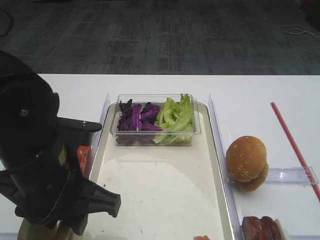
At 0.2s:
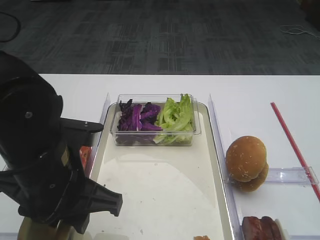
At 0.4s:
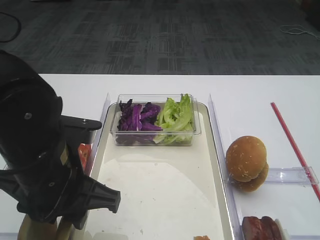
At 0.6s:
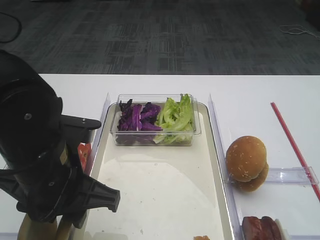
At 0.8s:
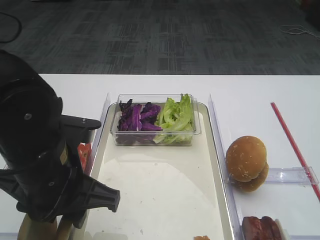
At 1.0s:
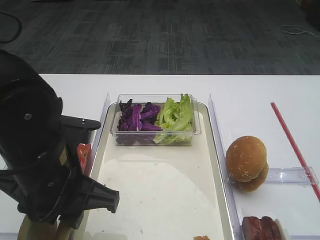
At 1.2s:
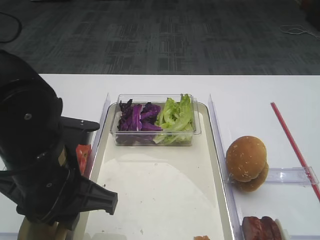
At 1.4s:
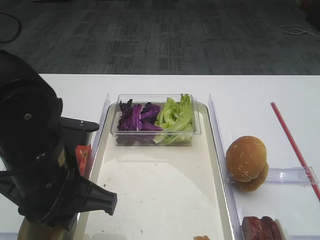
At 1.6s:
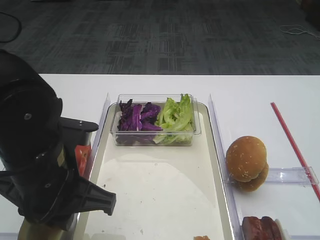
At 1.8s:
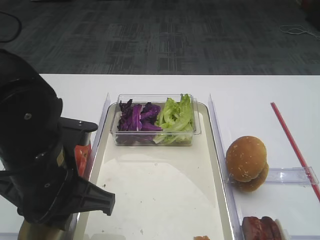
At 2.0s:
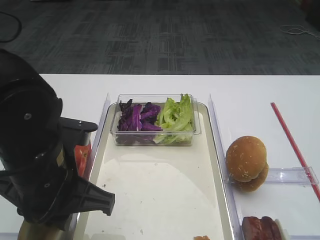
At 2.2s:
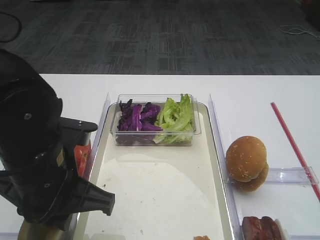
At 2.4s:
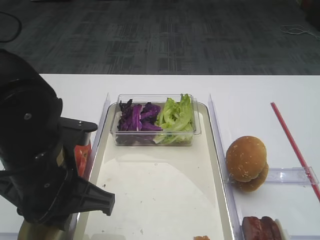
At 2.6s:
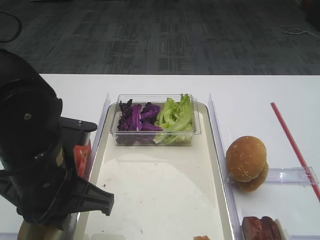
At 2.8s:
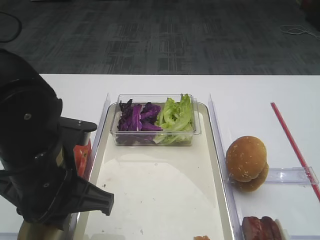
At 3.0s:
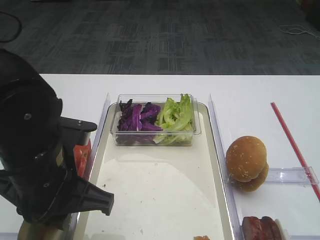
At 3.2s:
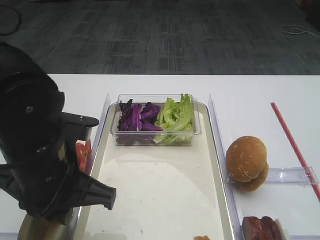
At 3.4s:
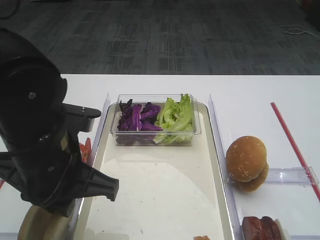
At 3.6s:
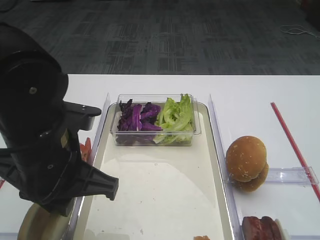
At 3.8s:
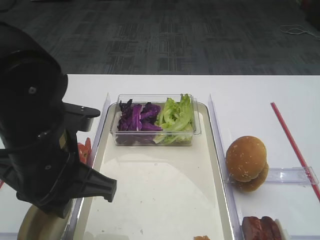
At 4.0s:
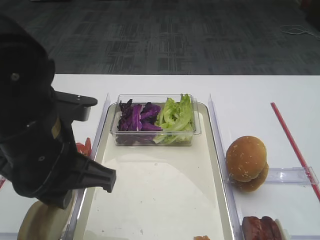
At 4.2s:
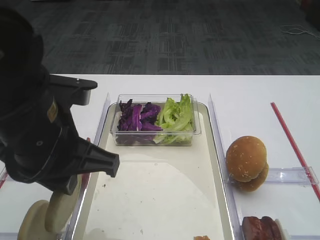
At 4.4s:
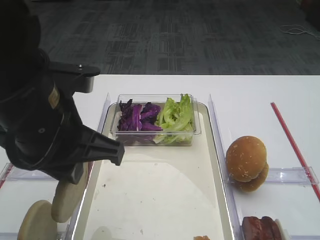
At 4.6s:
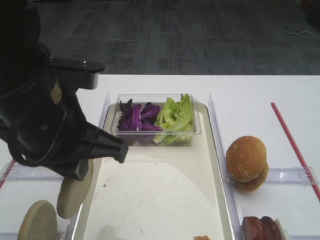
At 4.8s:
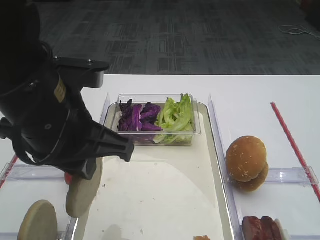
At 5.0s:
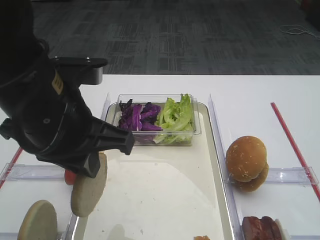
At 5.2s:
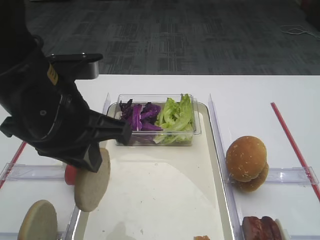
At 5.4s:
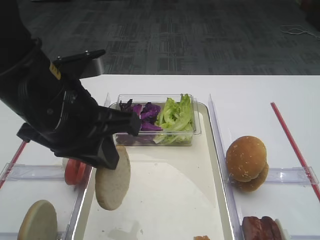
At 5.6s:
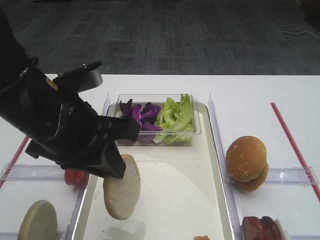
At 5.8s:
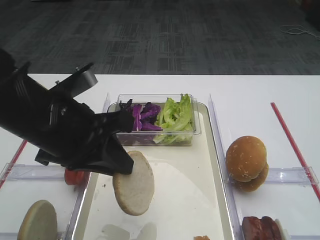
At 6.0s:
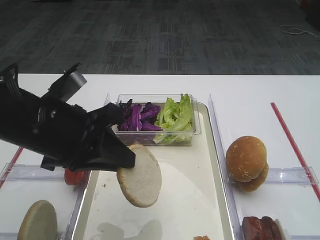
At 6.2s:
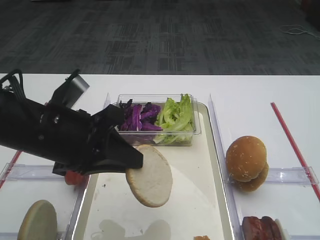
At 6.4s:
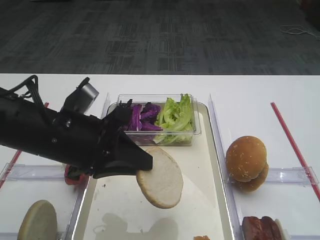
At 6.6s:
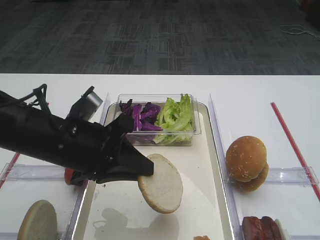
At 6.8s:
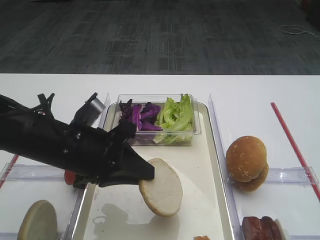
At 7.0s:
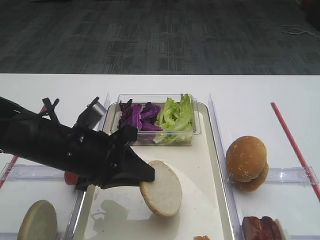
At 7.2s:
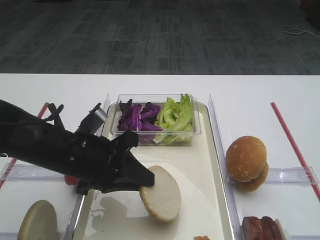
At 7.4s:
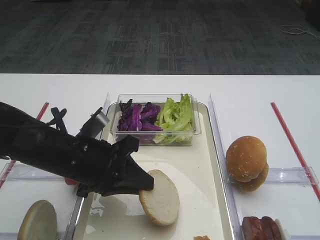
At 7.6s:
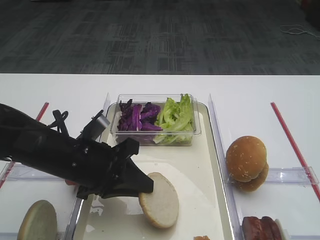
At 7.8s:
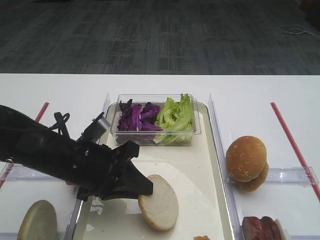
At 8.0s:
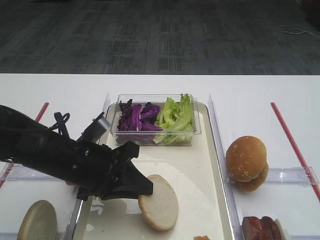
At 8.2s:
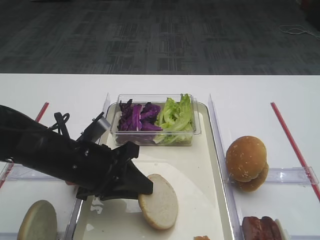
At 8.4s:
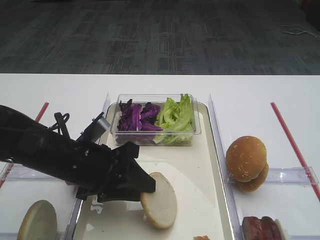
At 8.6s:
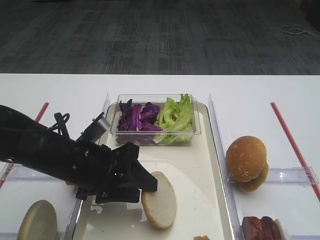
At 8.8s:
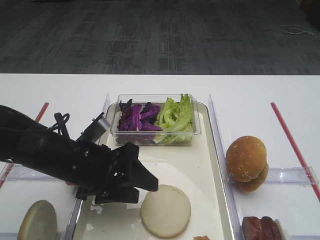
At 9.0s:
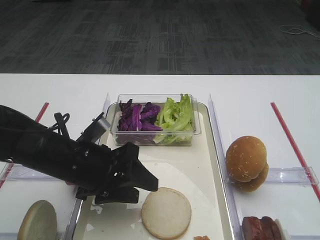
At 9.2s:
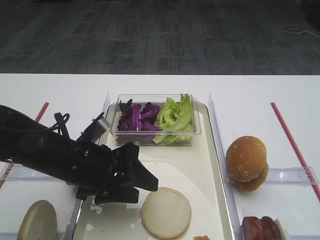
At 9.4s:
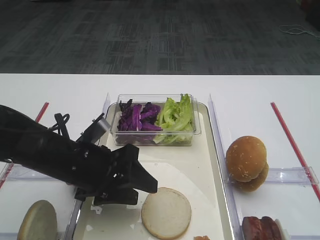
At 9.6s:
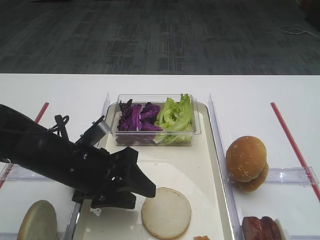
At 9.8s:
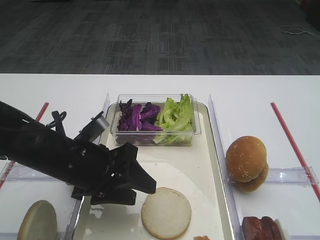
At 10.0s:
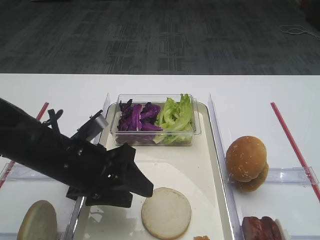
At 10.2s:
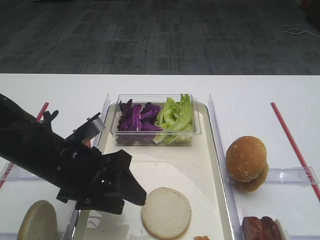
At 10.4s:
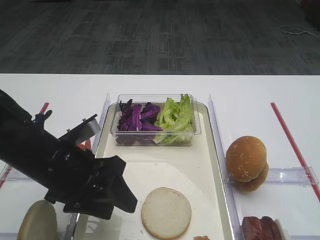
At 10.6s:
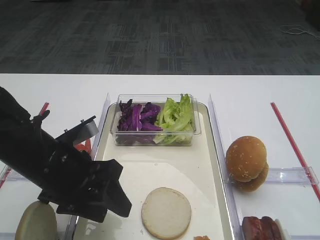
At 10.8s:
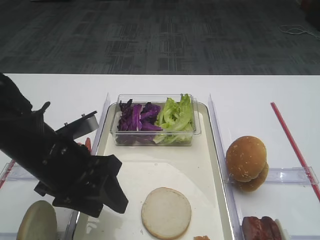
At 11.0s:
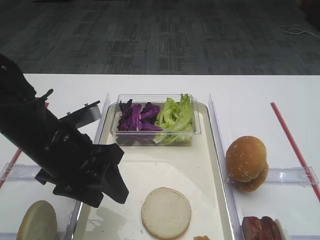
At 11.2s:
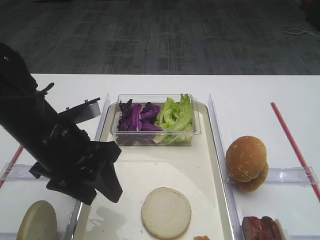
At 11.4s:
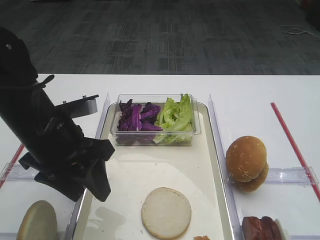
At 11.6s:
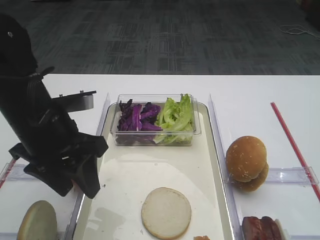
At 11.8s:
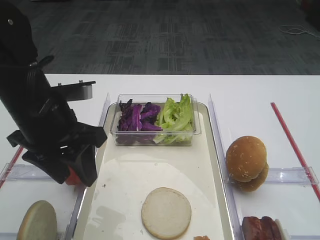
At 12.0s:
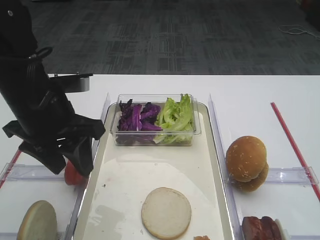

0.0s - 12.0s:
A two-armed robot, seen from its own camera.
Step, 0.0s - 4.4s: Pick up the bread slice with the left gripper.
Step, 4.6s - 10.0s: Place the bread slice on the tray with the left gripper.
0.0s - 1.6s: The left gripper closes its fingers.
1.6s - 3.0s: Both grippers stay put.
3.0s - 4.4s: The left gripper is displaced upward by roughly 5 cm.
4.4s - 6.0s: The left gripper ends up about 5 cm from where it was.
6.0s - 7.6s: The left gripper is displaced downward by some 10 cm.
7.6s - 9.0s: The left gripper opens up.
9.0s - 10.4s: The grippers make only small movements.
10.4s - 12.0s: The left gripper travels upward by approximately 10 cm.

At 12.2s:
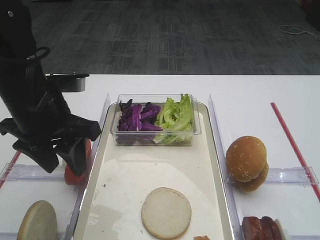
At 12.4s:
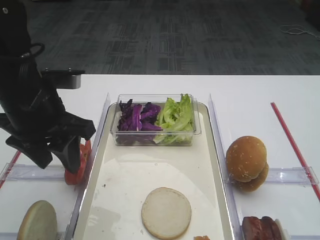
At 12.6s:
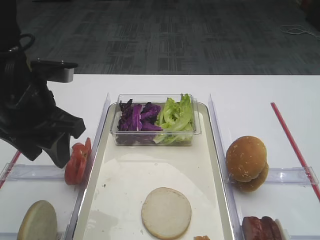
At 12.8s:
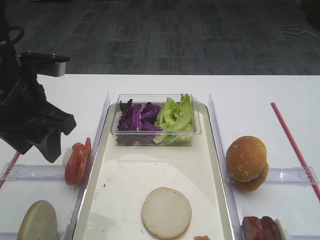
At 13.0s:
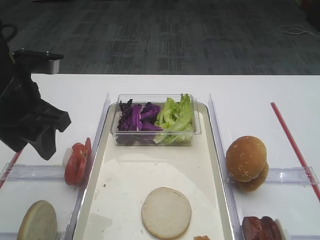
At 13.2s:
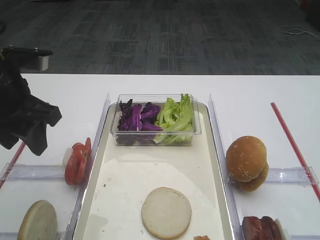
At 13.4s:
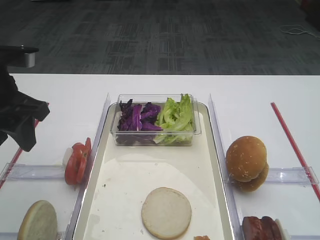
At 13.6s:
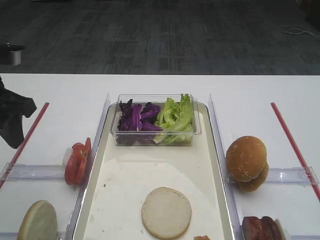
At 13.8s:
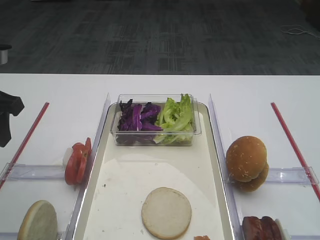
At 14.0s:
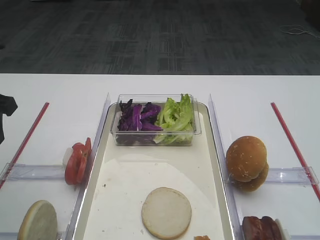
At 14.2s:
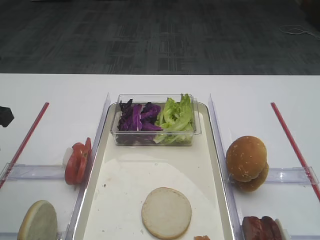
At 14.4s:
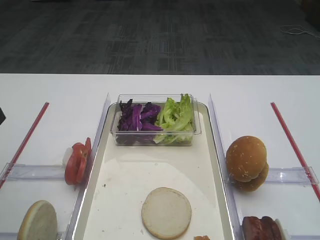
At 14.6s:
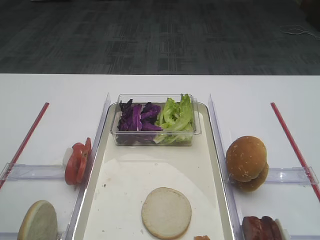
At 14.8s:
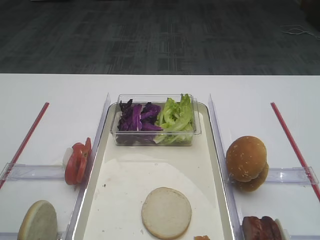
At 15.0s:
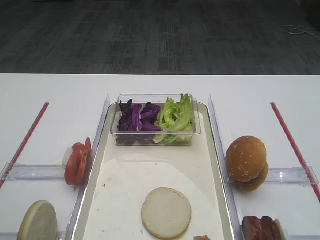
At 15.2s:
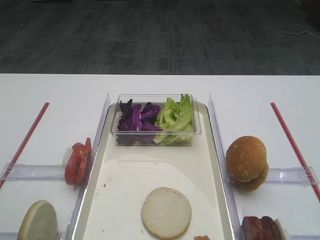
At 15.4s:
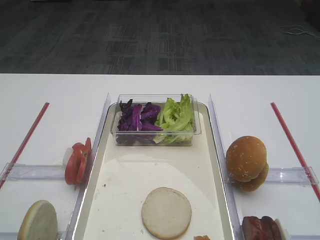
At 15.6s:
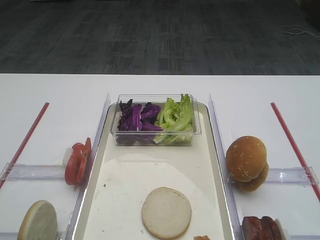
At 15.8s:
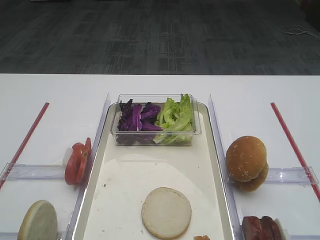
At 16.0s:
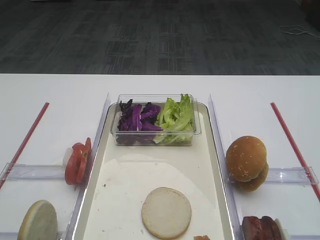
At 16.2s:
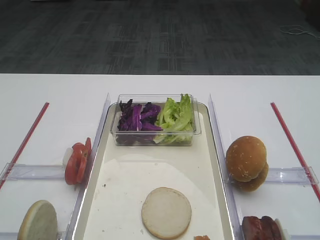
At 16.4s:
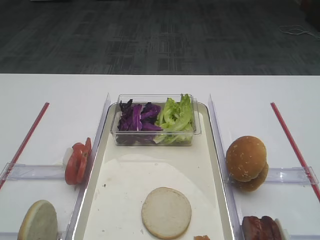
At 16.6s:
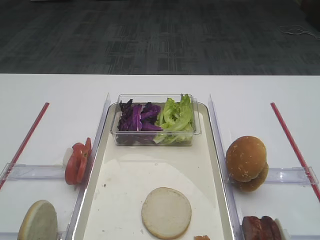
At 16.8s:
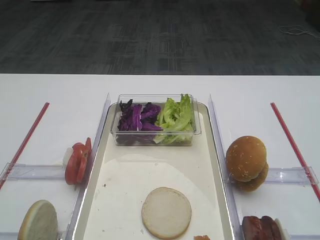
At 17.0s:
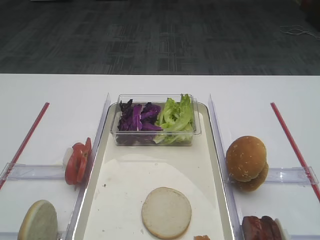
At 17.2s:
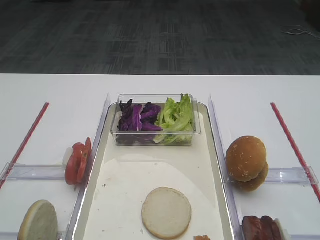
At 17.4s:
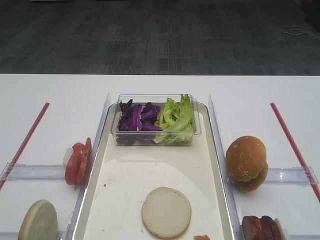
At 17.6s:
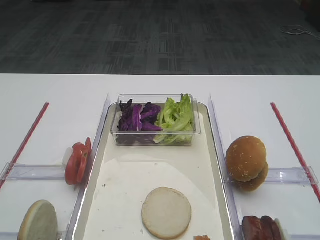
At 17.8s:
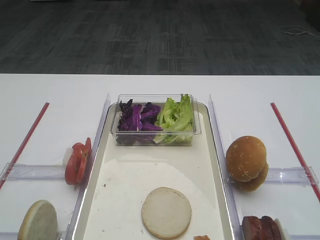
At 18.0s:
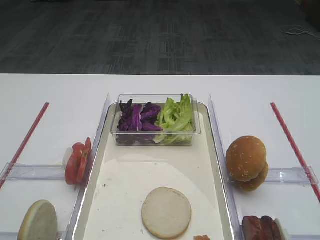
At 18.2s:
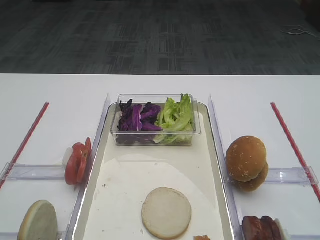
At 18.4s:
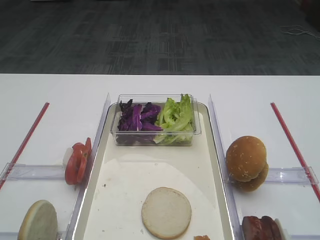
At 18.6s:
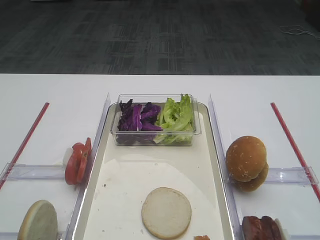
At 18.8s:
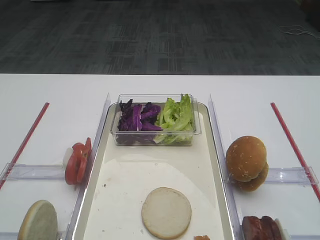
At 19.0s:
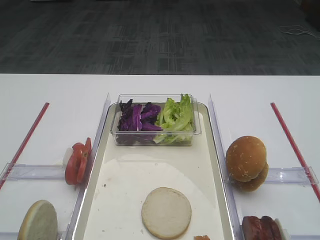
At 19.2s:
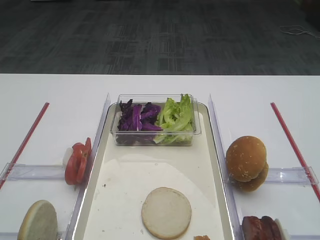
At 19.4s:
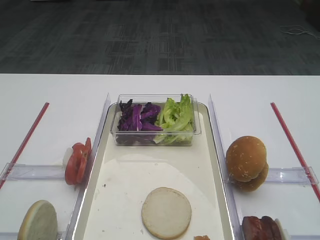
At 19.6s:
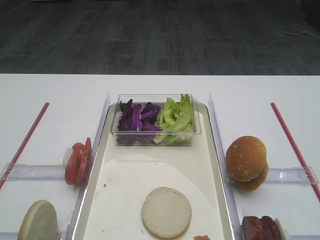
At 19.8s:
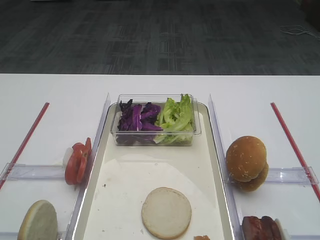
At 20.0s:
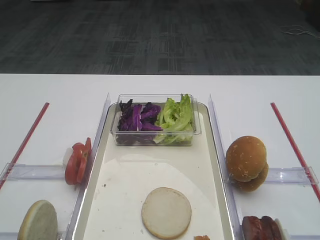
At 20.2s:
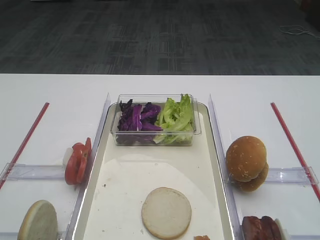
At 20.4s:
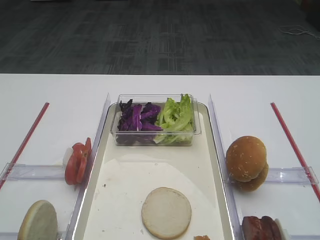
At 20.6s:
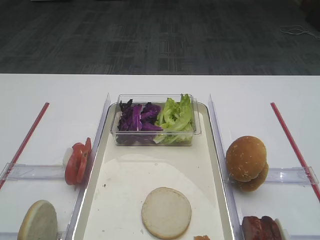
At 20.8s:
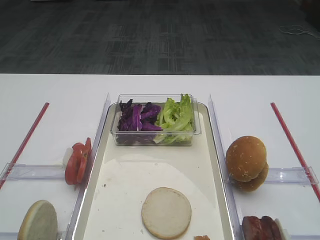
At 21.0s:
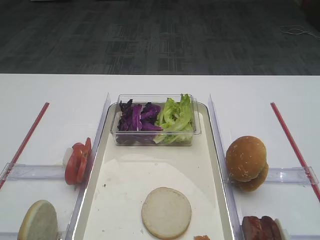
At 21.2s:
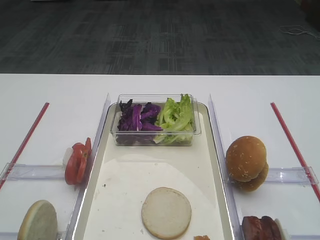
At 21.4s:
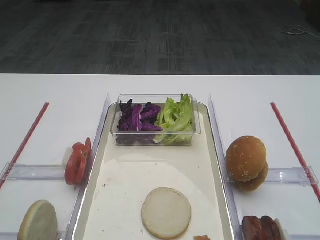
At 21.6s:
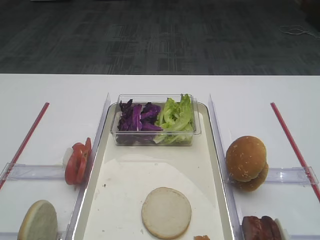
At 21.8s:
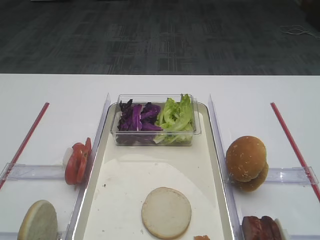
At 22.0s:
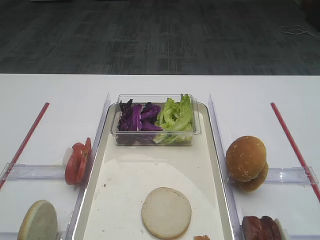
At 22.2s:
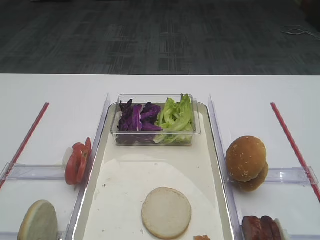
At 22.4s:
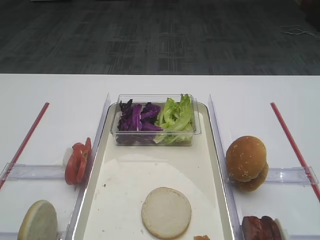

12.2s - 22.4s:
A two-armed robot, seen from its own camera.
12.2s - 13.6s: The left gripper moves to the left, some 10 cm.
13.6s - 15.2s: The left gripper heads backward, covering some 15 cm.
18.0s - 22.4s: Both grippers stay put.
